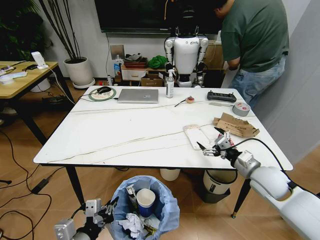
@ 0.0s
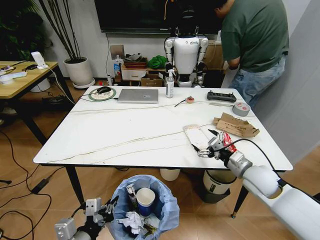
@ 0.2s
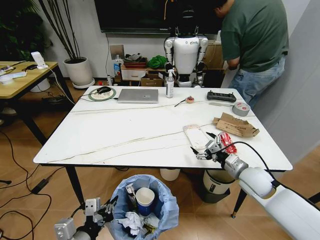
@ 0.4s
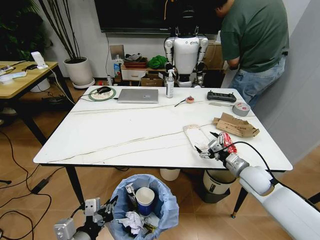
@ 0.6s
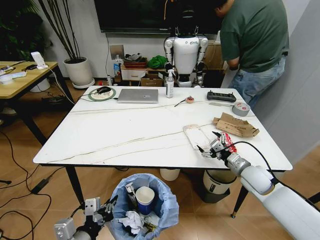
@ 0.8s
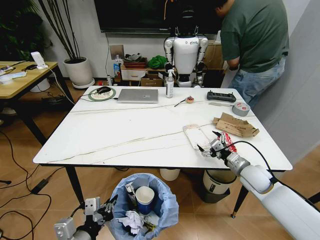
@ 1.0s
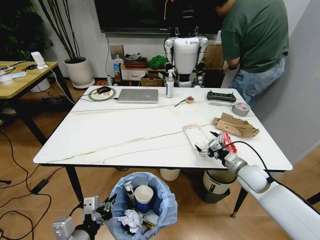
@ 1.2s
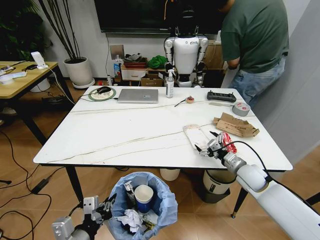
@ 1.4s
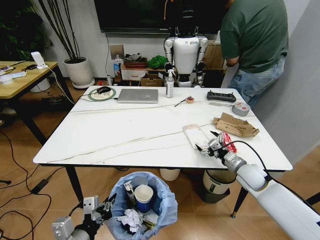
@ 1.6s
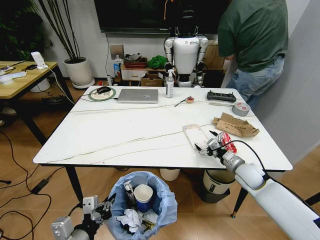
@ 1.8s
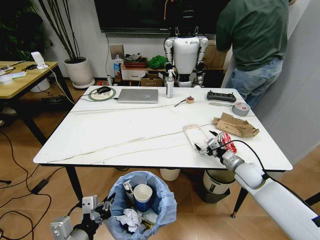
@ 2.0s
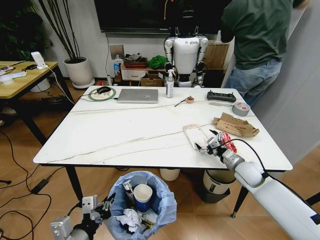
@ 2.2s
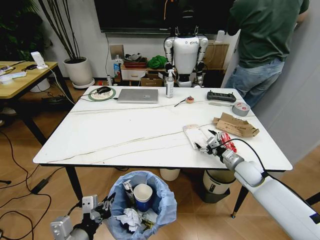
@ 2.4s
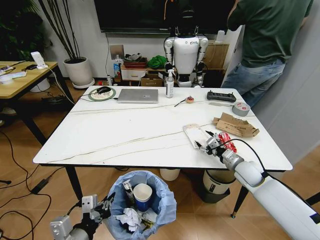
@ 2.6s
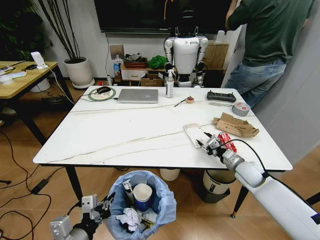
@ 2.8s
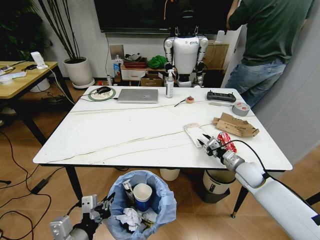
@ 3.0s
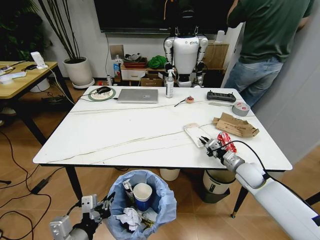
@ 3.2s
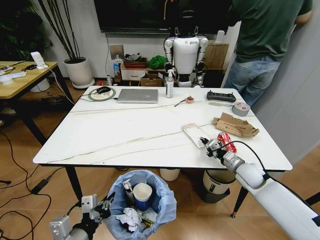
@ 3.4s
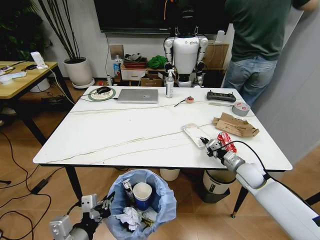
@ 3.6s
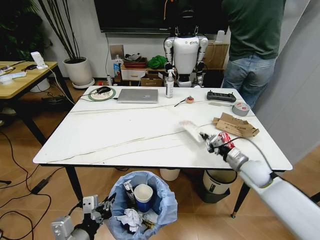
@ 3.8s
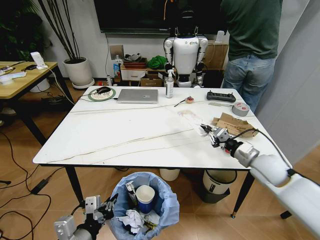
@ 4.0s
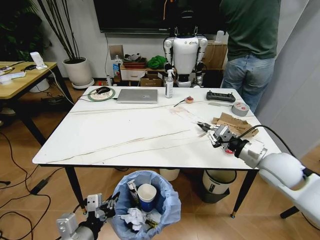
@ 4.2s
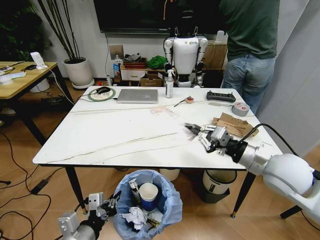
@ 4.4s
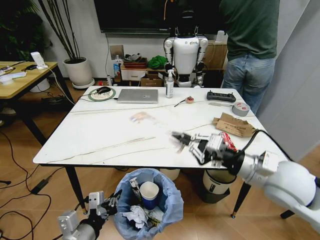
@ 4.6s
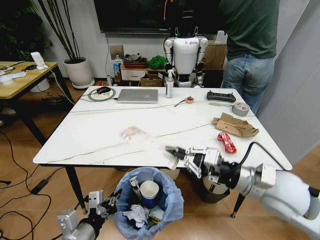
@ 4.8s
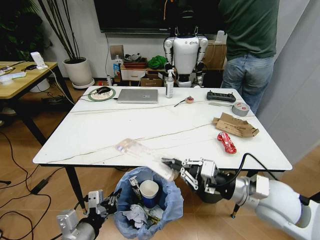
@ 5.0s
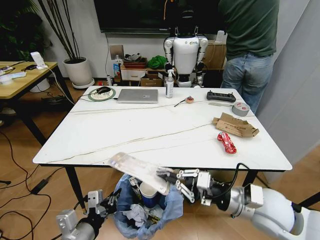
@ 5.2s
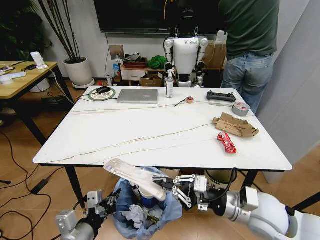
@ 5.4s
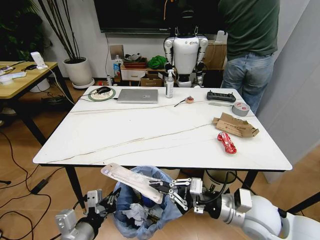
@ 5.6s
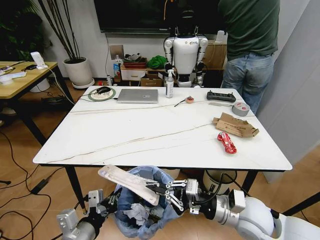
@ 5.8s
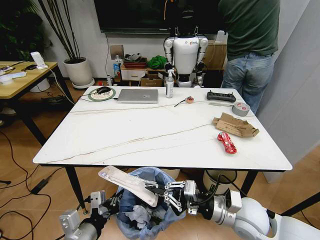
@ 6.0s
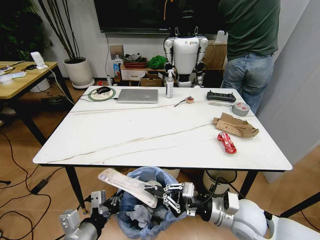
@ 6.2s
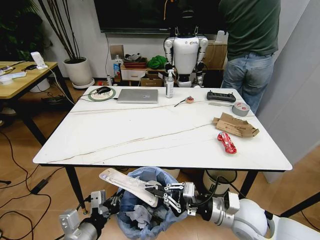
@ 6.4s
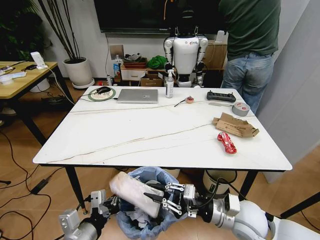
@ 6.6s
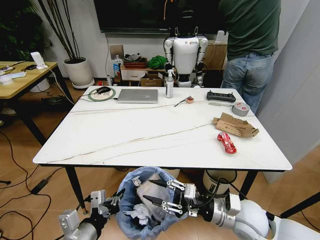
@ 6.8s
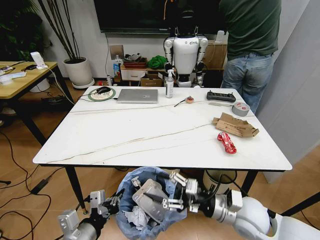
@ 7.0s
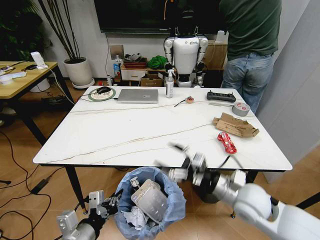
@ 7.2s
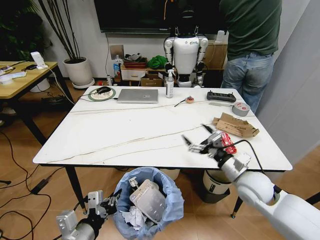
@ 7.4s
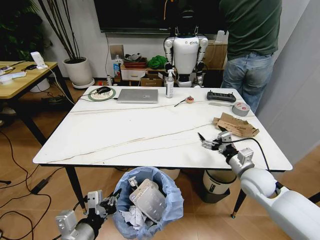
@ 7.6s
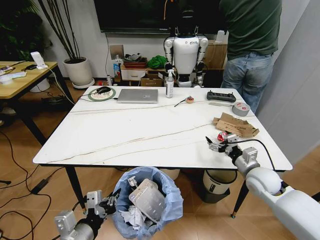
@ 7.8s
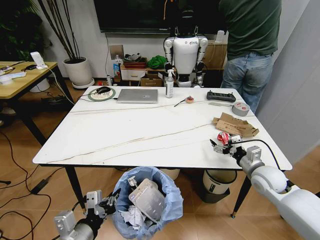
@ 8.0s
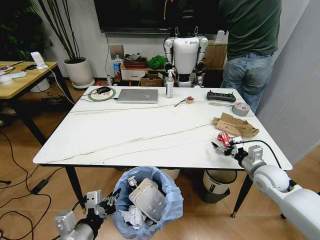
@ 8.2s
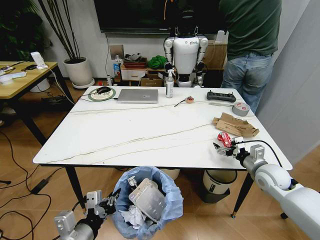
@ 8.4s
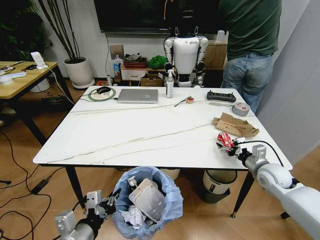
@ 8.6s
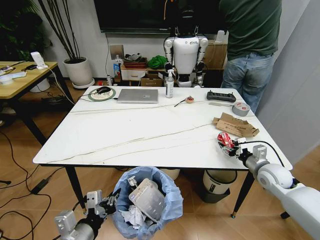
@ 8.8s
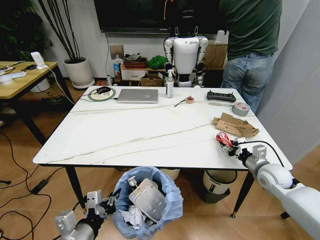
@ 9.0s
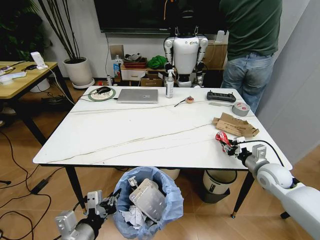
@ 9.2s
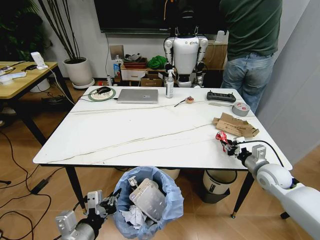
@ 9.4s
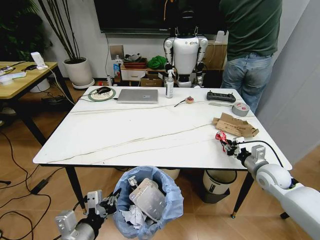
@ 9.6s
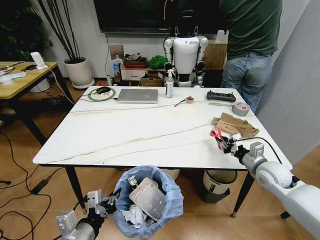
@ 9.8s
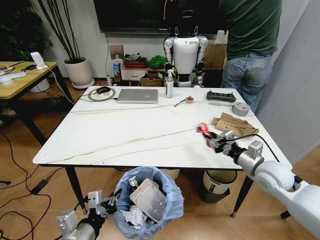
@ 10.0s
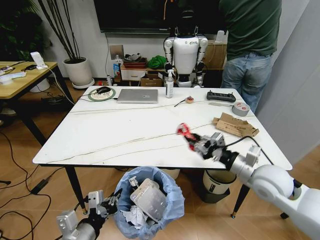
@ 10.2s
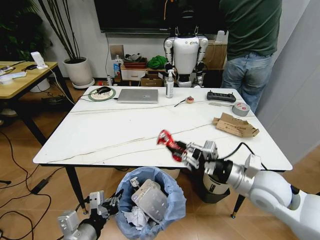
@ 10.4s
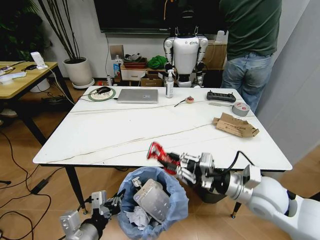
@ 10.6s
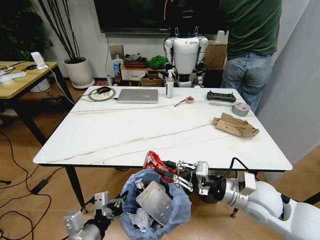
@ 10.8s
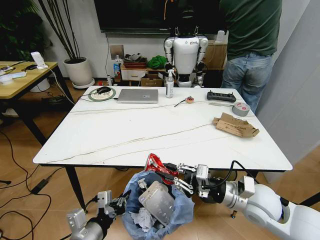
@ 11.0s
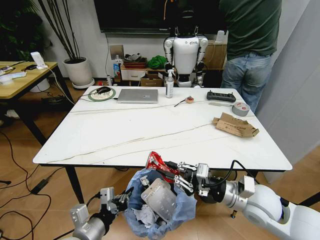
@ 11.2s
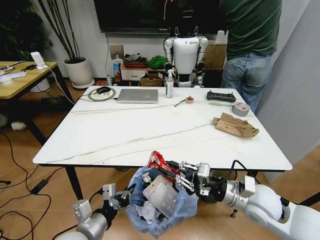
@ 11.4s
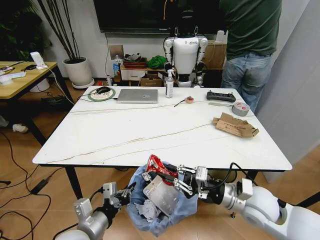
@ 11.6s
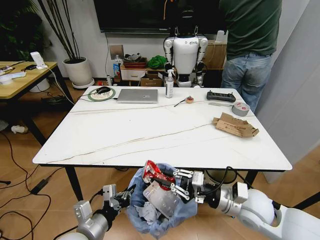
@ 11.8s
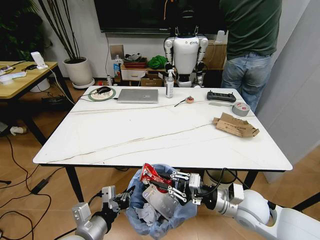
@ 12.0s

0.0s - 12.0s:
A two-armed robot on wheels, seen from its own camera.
Task of the whole recording: Pick up the trash bin and place the trash from the table into it.
0.0s - 1.6s: The right gripper is displaced downward and forward by about 10 cm.
1.6s - 3.0s: The right gripper closes.
3.0s - 4.4s: The right gripper shifts about 20 cm upward and backward.
4.4s - 6.0s: The right gripper is displaced downward, to the left and backward by approximately 15 cm.
6.0s - 7.6s: The right gripper goes about 15 cm forward and to the right, and opens its fingers.
7.6s - 9.0s: The right gripper shifts some 10 cm to the right, and closes.
9.0s - 10.4s: The right gripper heads to the left, upward and backward, covering roughly 20 cm.
10.4s - 12.0s: The right gripper heads downward, covering approximately 5 cm.

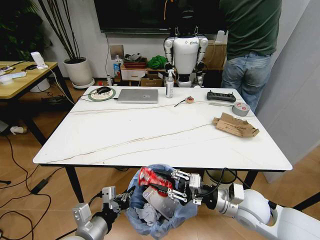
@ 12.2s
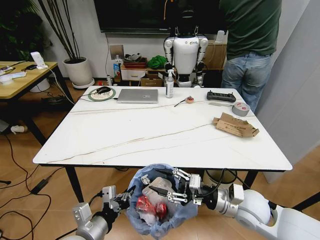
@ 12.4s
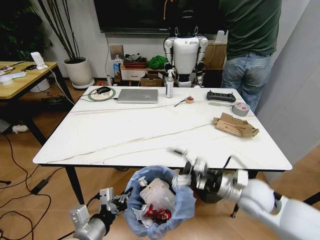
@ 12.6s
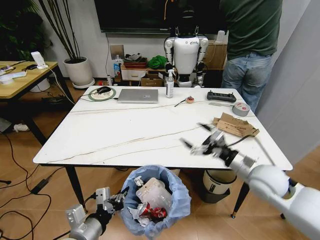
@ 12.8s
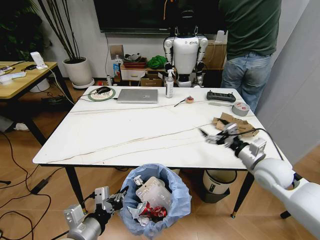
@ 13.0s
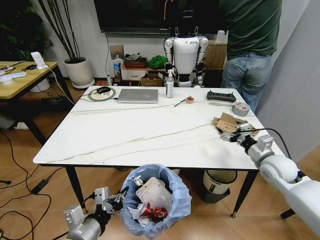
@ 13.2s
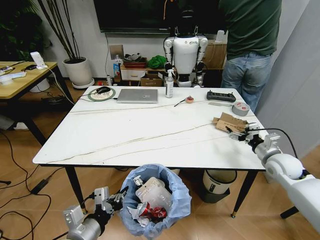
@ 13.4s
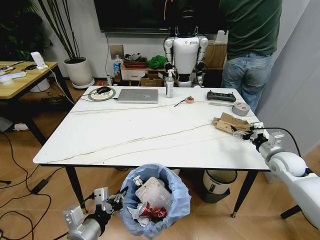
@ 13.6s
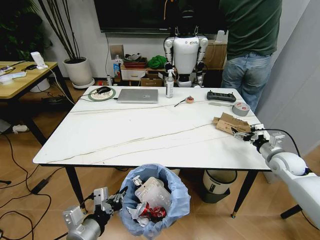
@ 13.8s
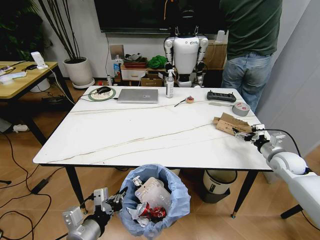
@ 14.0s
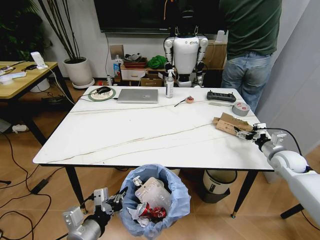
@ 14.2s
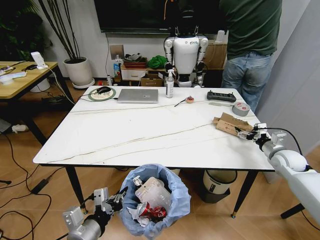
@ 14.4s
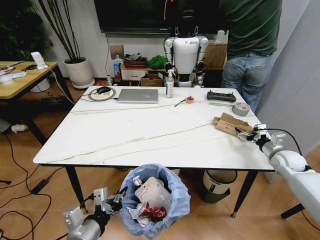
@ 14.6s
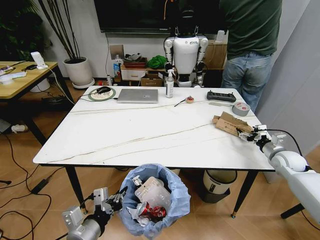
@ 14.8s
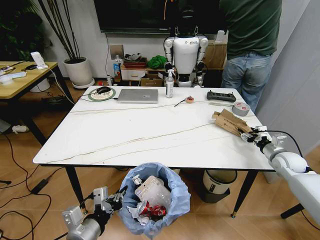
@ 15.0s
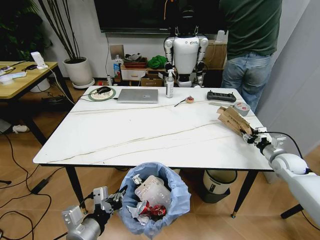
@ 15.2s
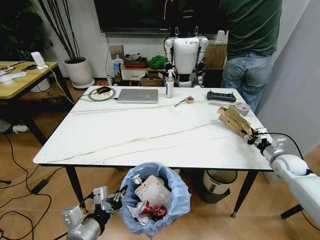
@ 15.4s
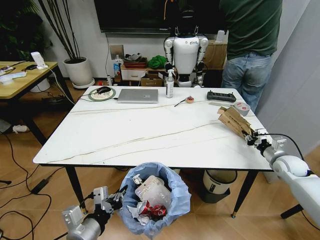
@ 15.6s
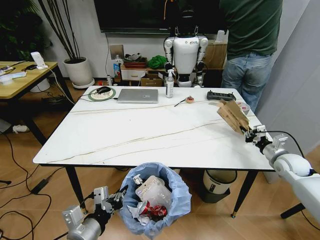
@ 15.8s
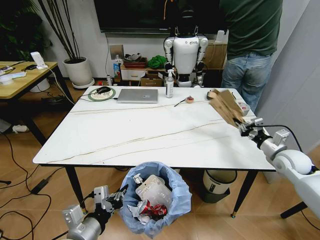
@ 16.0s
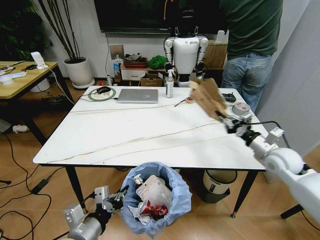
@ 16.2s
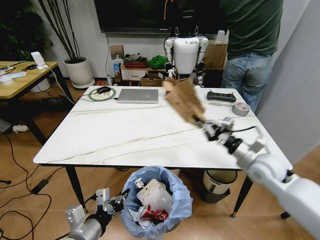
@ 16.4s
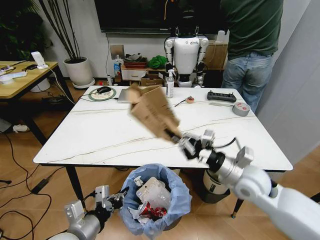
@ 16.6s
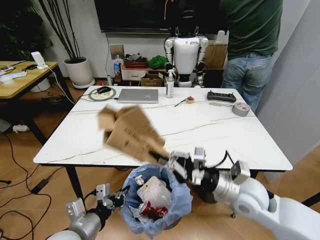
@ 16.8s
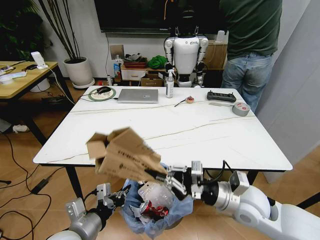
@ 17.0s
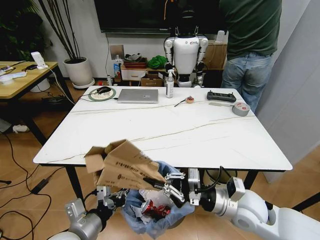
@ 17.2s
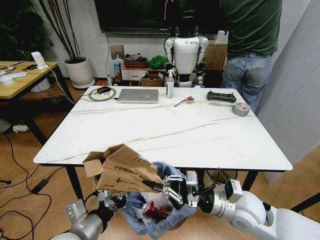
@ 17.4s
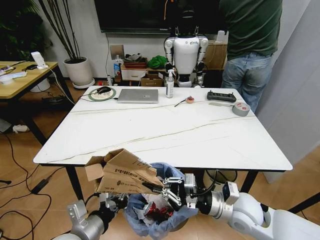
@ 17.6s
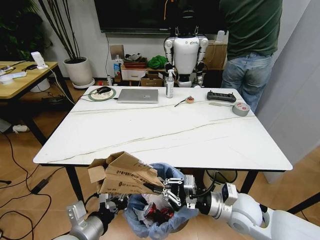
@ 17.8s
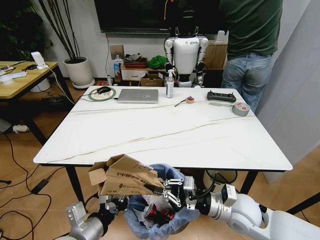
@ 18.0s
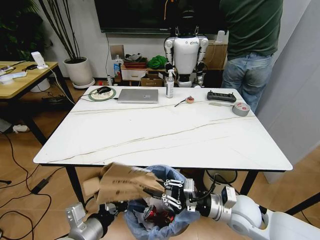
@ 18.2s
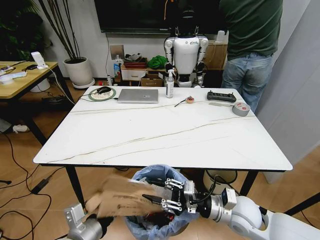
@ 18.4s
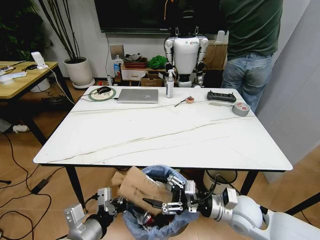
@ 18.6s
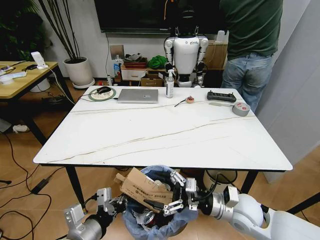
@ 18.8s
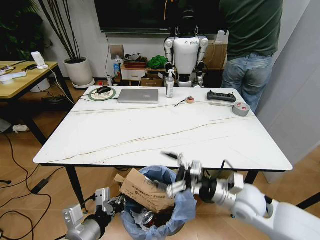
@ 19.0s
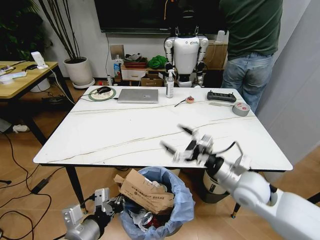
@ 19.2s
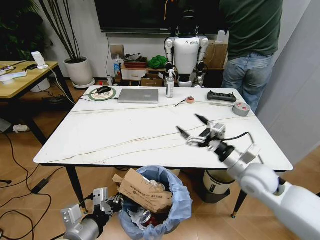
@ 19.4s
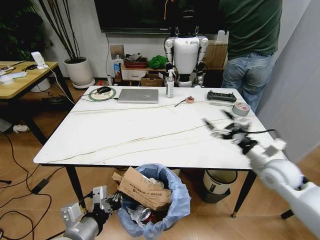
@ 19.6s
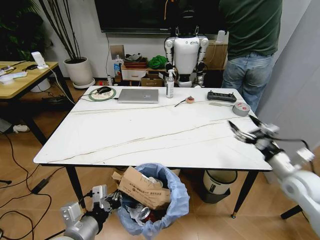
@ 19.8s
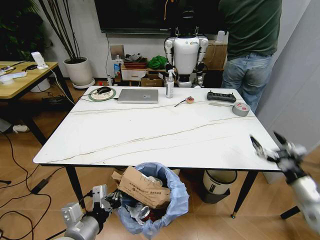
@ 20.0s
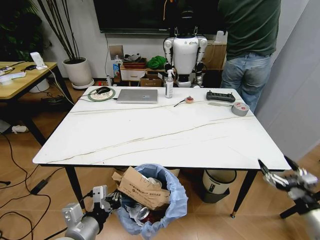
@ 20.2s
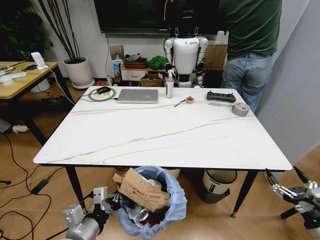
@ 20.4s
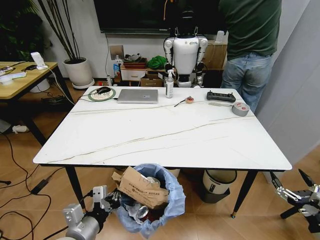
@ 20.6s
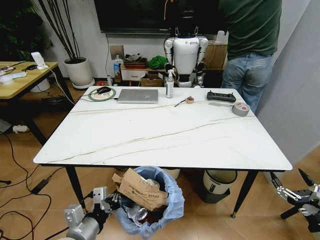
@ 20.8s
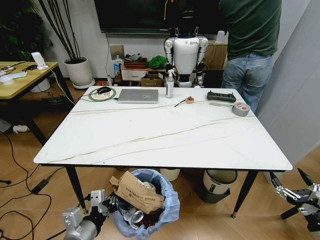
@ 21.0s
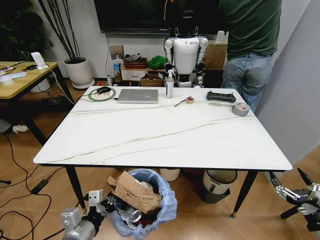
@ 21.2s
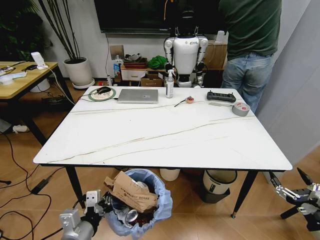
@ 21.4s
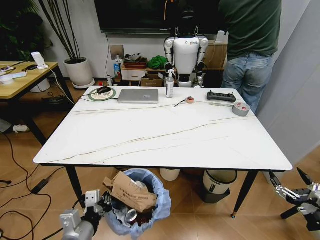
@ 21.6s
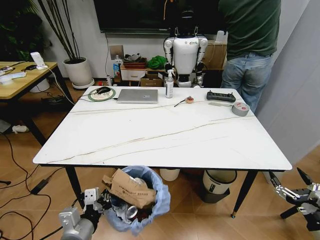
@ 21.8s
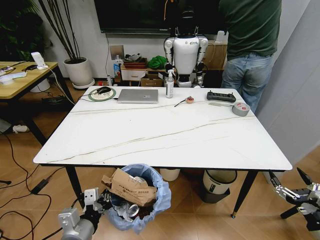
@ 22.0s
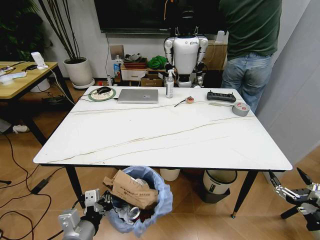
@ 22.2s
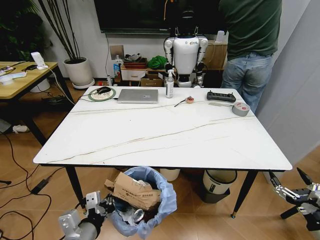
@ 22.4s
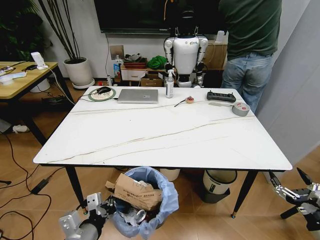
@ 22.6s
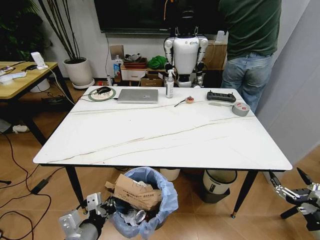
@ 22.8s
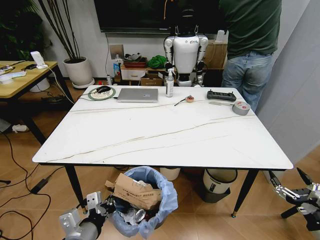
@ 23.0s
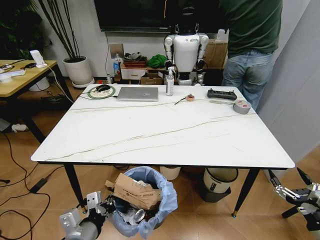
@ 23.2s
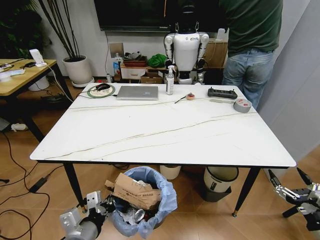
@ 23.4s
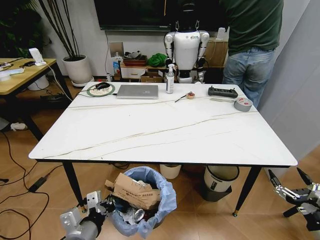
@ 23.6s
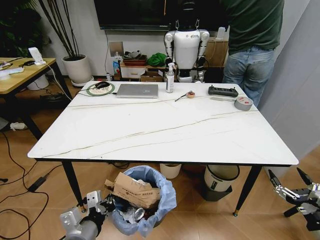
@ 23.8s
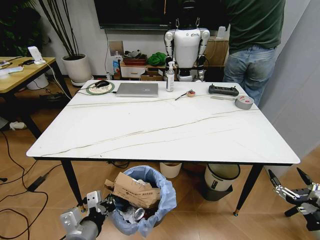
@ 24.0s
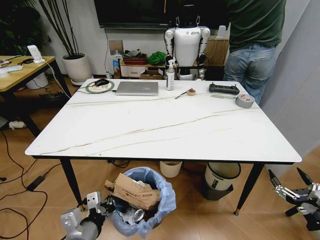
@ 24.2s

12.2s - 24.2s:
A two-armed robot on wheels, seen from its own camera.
Task of the whole recording: Pick up the trash bin and place the trash from the table into it.
12.2s - 13.8s: The right gripper is displaced to the right and forward by roughly 25 cm, and opens.
13.8s - 15.2s: The right gripper closes.
15.2s - 16.6s: The right gripper heads to the left and backward, covering about 25 cm, and closes its fingers.
16.6s - 18.2s: The right gripper travels downward and backward by about 10 cm.
18.2s - 19.8s: The right gripper heads to the right, covering approximately 20 cm, and opens its fingers.
19.8s - 21.2s: The right gripper heads backward, covering roughly 20 cm.
21.2s - 22.6s: The grippers move only a little.
